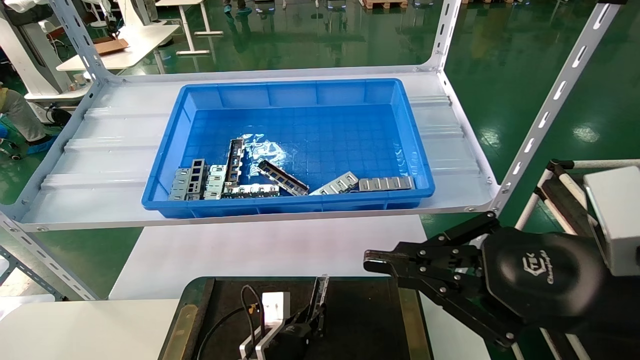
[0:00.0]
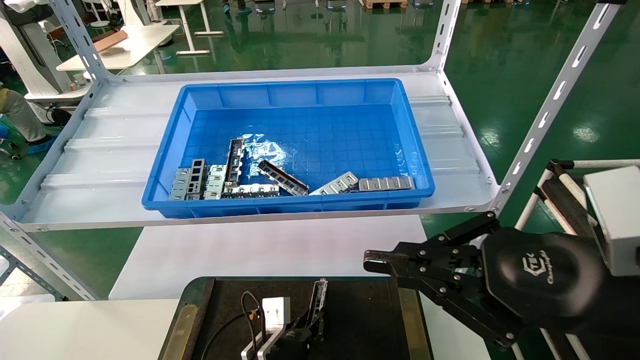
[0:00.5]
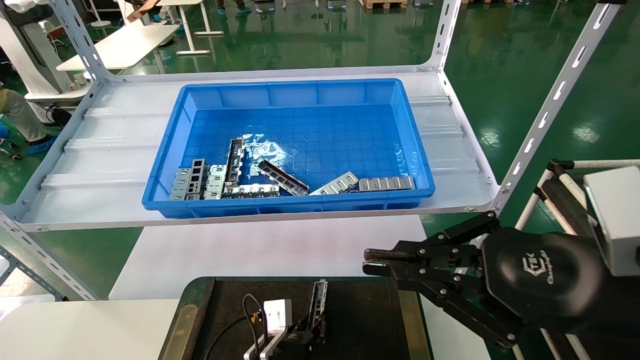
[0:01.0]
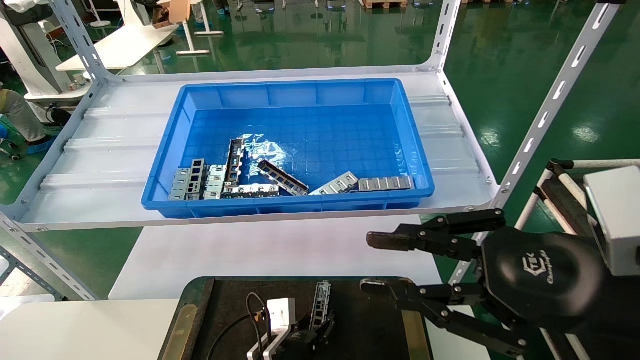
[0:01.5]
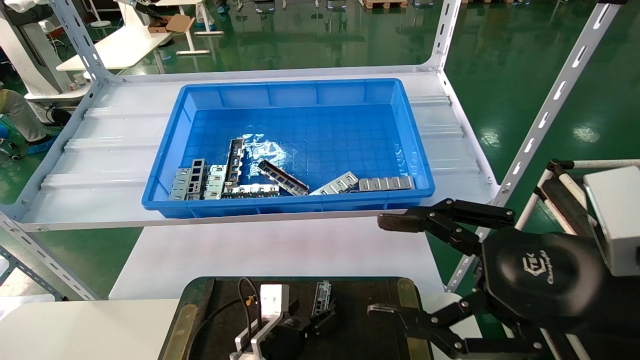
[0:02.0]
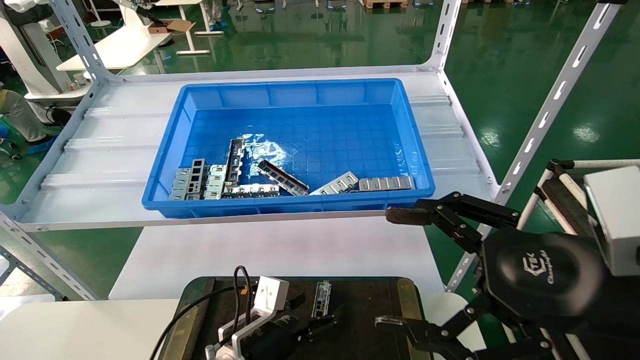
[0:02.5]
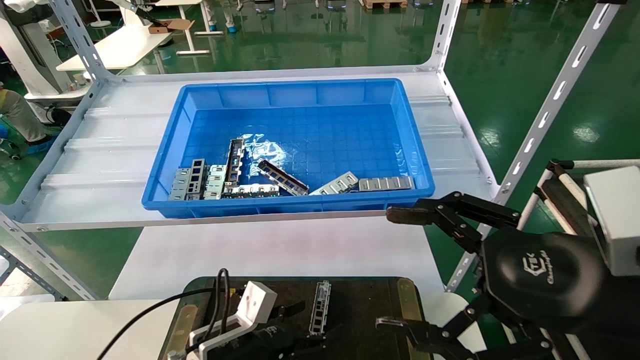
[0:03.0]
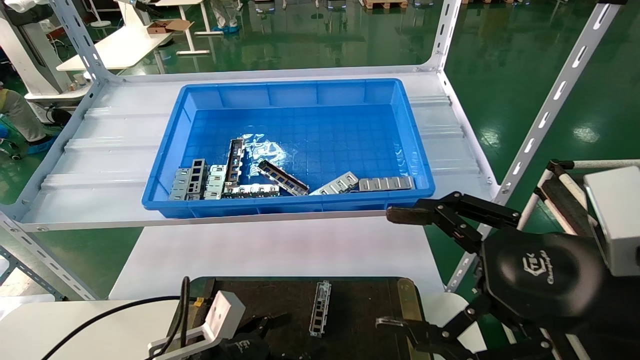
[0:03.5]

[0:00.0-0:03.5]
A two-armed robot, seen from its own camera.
Task of the whole recording: Grasp the part with one hand and place it on the black container.
0:00.0 to 0:02.0: The right gripper opens. Meanwhile the left gripper opens.
0:02.0 to 0:03.5: The right gripper opens up, while the left gripper shifts about 15 cm to the left, backward and upward.
